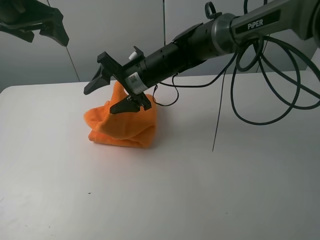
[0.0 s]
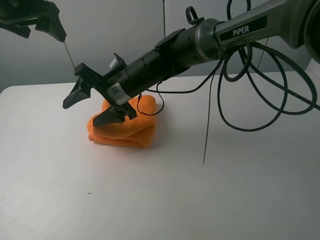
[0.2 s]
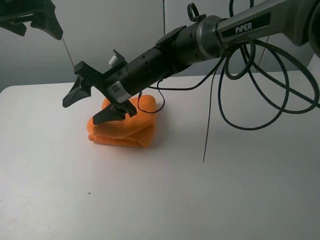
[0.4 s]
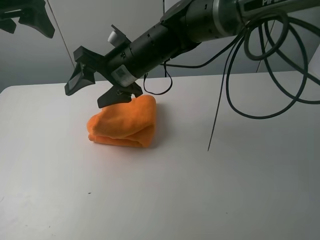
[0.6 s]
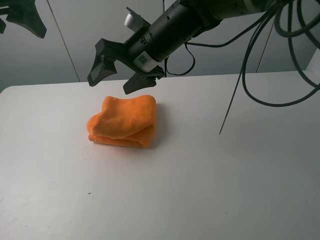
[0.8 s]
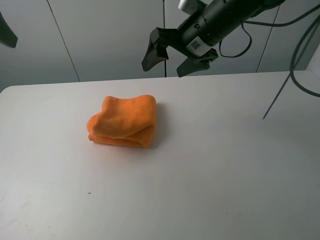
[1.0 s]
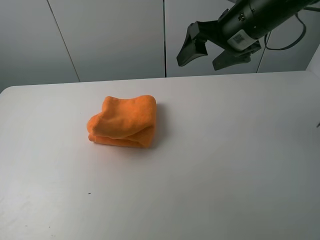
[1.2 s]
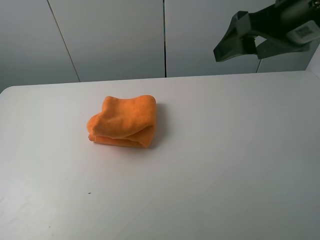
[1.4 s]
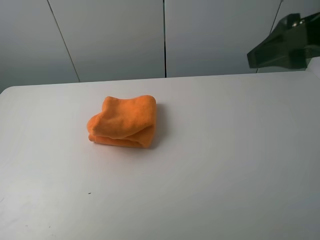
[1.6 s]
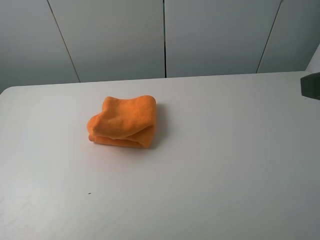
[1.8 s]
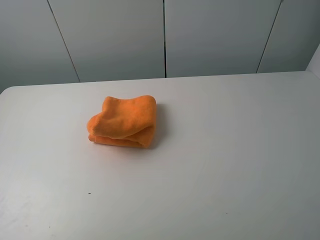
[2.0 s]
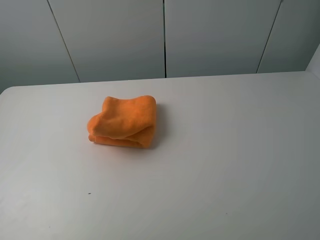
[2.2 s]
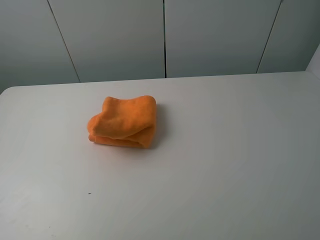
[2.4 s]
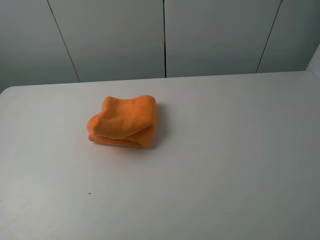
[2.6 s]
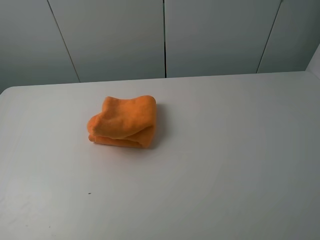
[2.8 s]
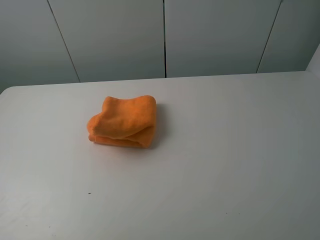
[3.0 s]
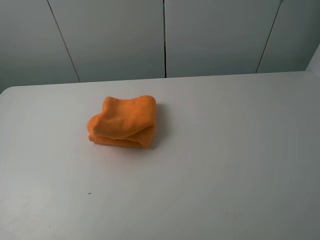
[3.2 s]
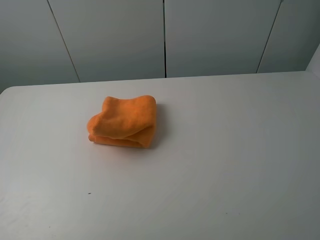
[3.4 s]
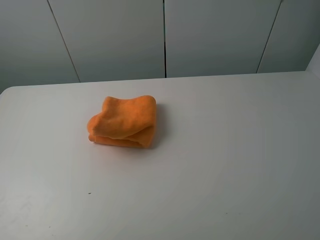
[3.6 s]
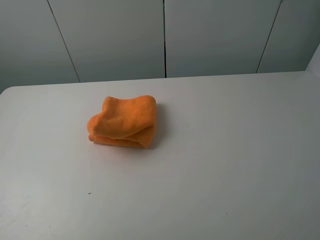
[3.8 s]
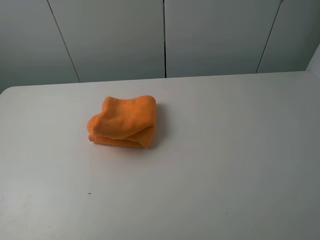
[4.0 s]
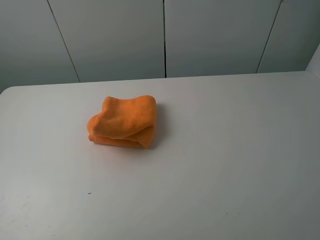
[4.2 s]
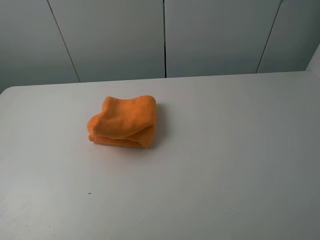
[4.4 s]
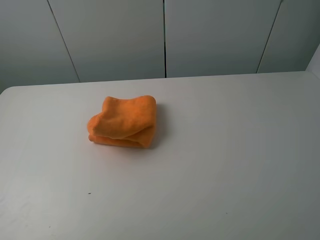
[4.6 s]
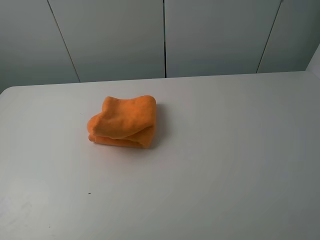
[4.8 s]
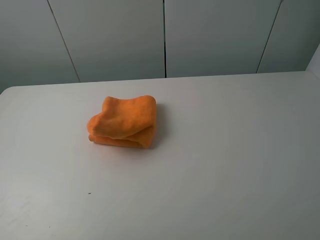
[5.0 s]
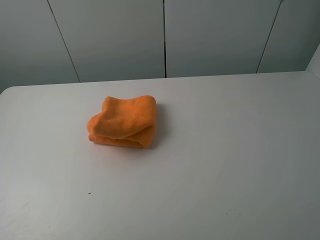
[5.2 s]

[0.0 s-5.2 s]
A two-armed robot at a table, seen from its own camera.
Task of the whole recording: fold the towels on the table.
0.0 to 1.8 s: The right gripper goes about 40 cm to the right, backward and upward, while the left gripper moves backward, about 30 cm.
1.8 to 3.4 s: The left gripper travels downward by roughly 5 cm.
